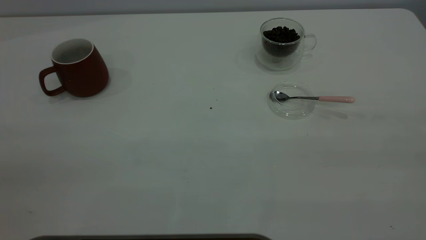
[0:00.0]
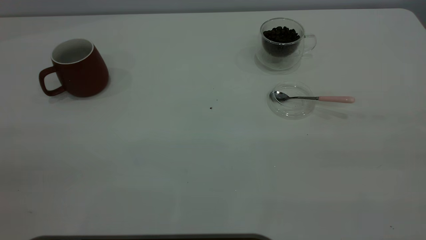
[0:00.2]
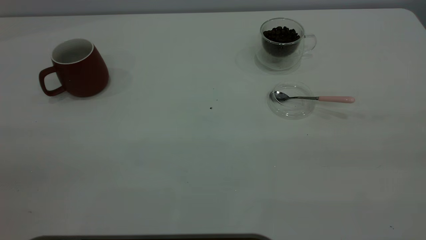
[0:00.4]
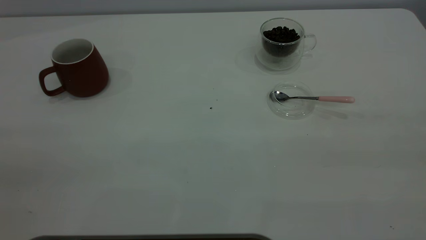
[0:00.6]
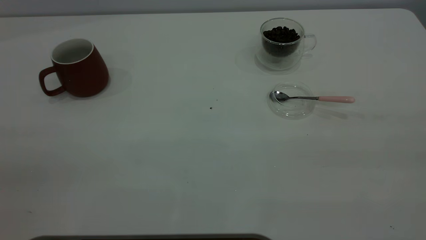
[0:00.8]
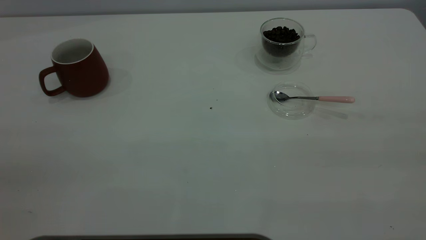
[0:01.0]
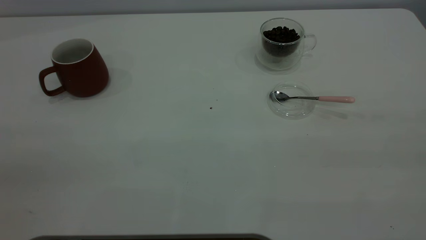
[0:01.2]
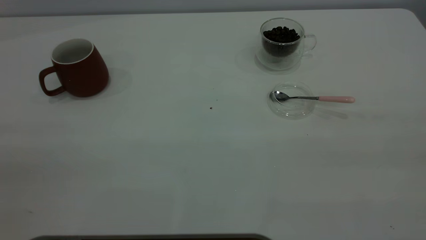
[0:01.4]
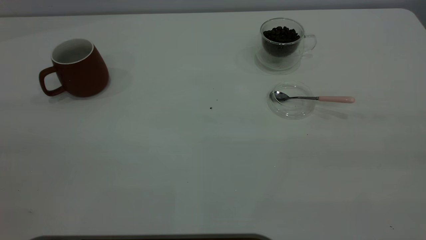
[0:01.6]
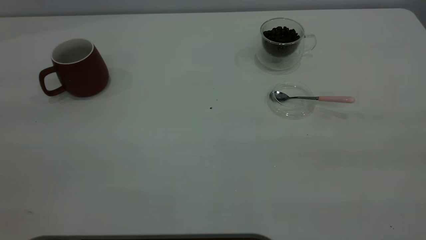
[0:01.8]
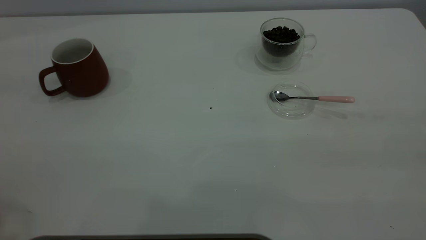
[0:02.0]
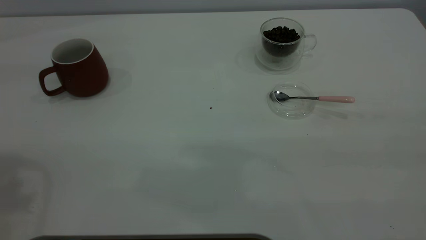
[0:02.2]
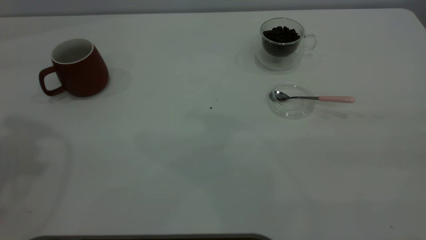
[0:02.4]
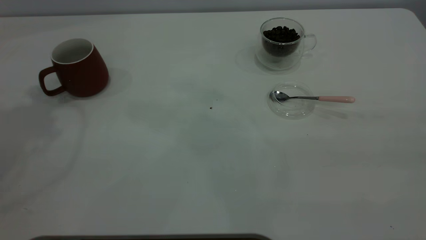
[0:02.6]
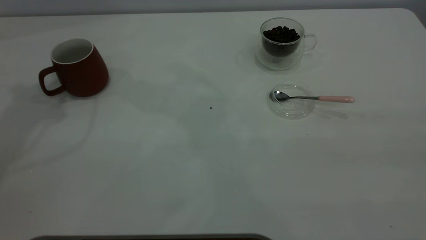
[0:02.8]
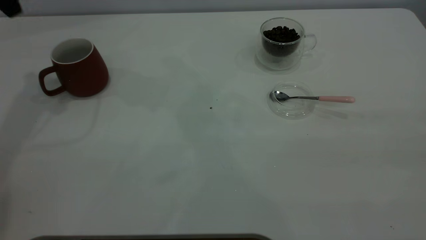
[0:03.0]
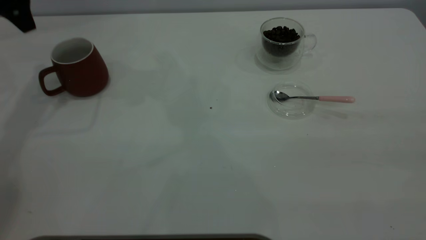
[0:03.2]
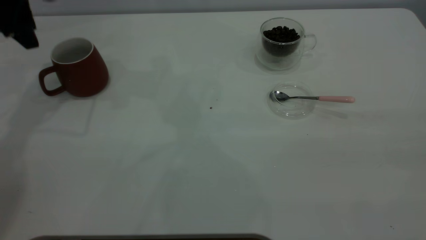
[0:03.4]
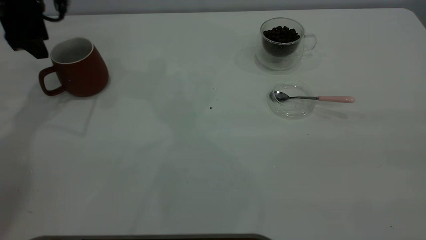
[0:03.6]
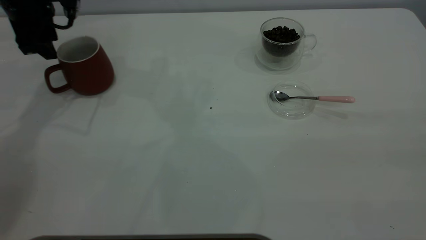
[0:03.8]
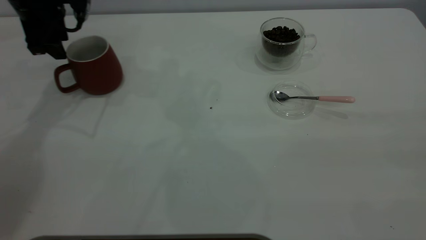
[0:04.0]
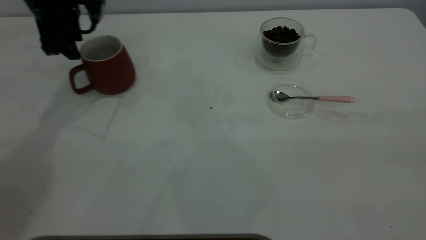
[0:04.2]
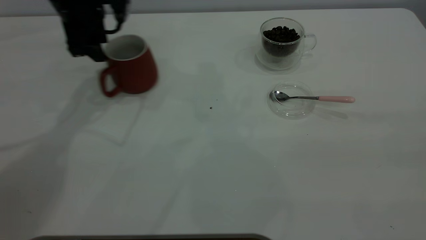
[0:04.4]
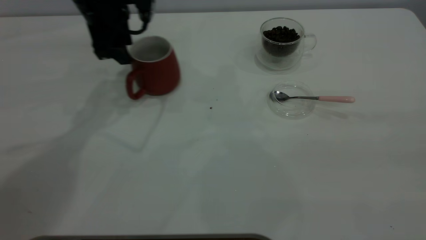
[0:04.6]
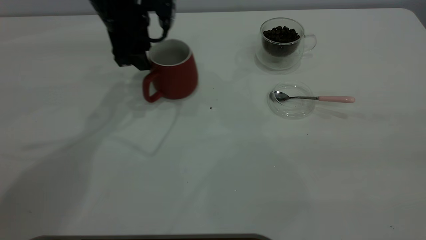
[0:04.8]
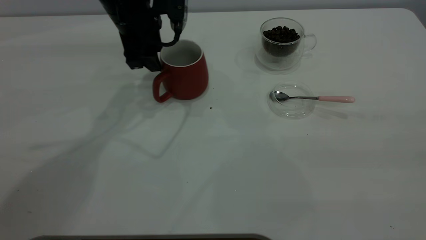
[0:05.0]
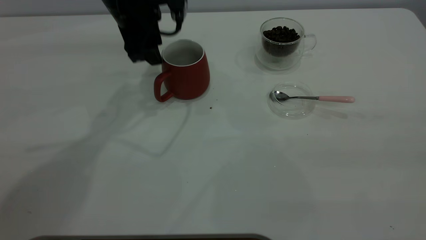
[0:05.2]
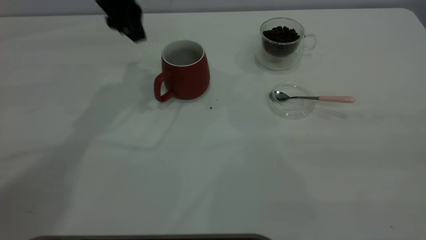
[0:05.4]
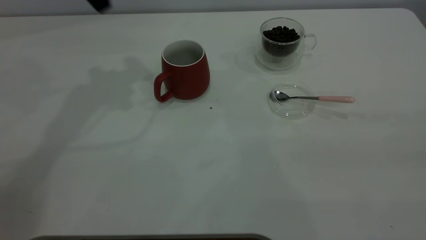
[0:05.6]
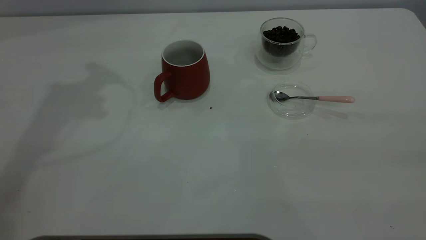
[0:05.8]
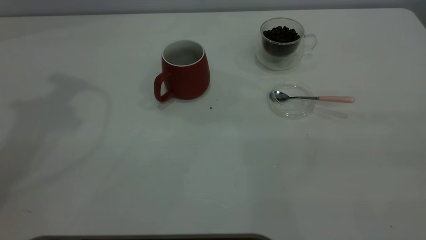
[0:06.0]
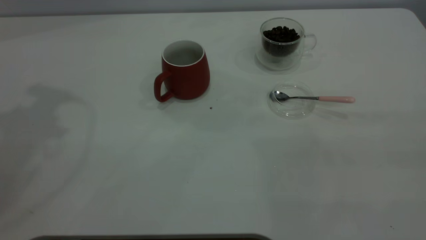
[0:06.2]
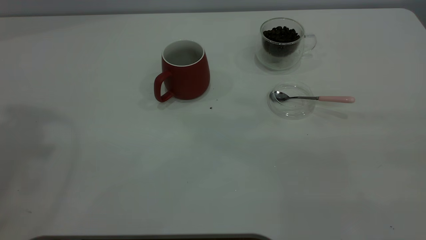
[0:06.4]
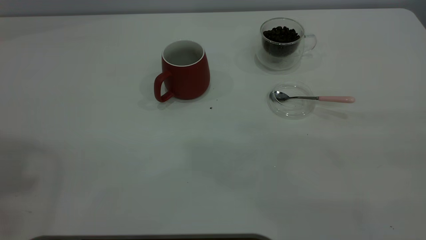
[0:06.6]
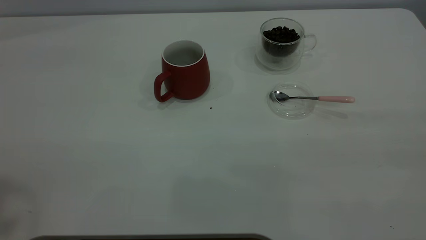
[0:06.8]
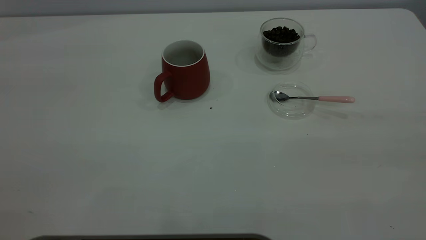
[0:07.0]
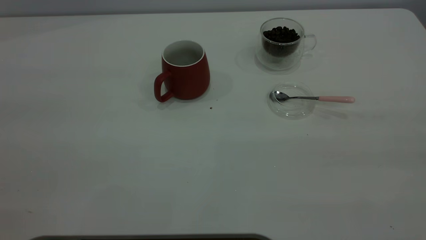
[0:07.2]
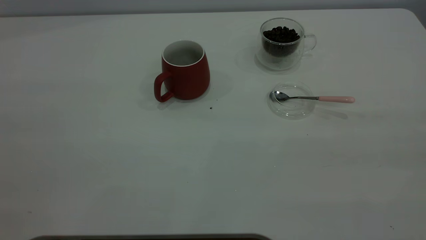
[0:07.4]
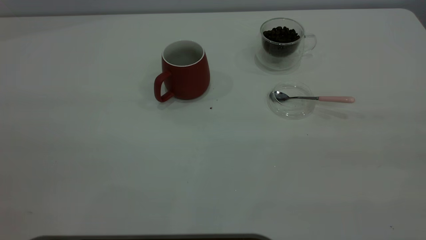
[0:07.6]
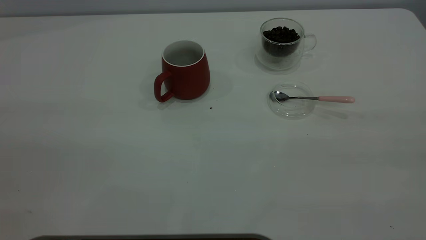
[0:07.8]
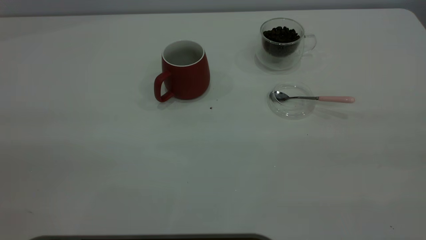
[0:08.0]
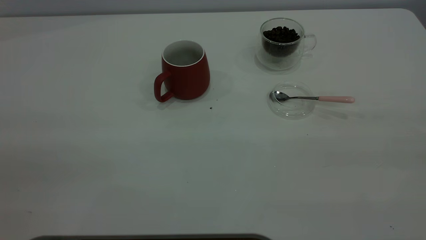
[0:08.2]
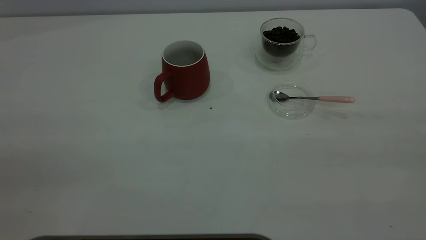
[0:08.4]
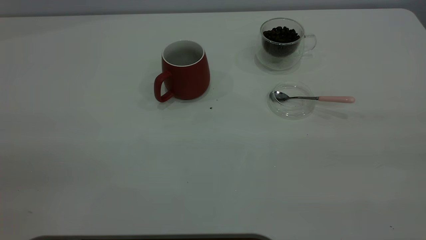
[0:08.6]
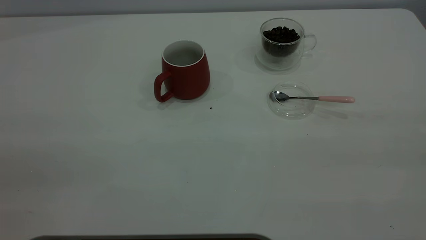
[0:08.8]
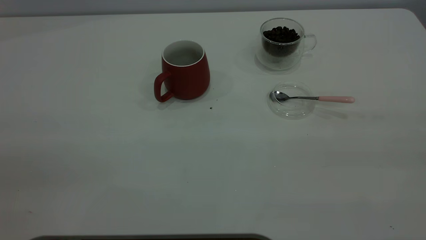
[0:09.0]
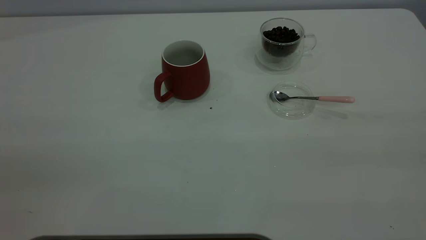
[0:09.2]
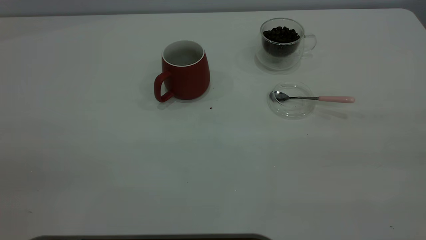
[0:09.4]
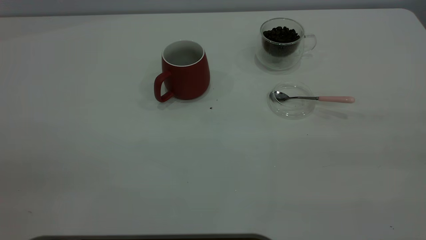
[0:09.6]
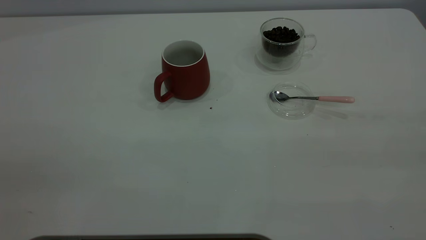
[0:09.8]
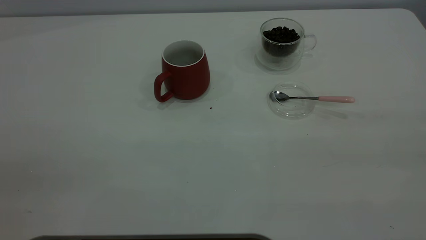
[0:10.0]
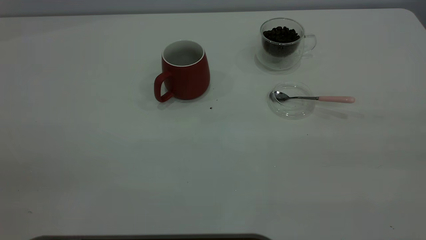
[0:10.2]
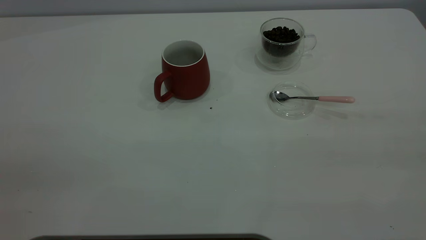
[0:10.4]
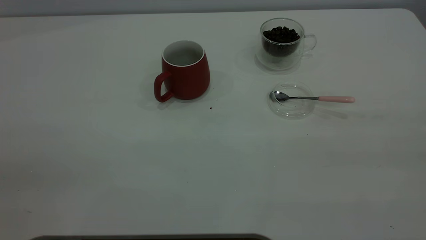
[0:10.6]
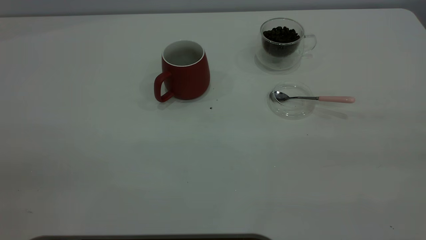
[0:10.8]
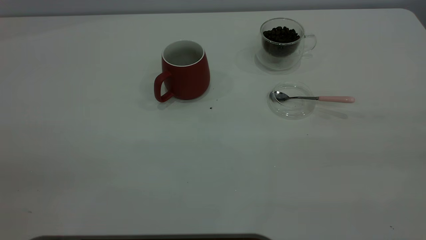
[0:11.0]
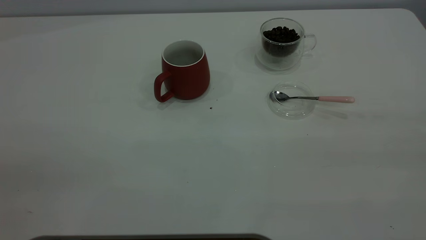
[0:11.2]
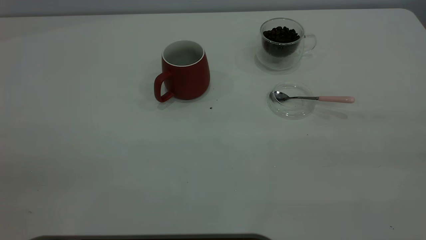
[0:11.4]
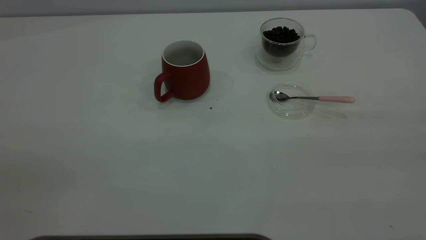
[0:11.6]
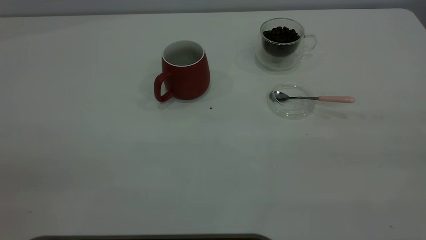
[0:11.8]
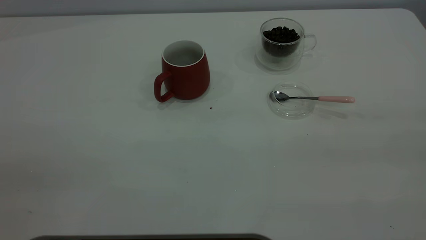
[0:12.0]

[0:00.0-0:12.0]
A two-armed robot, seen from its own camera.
Task of the whole recording: the left gripper place the red cup in the center of the table, the right gripper take the pink spoon from the cup lid and scoop out the coffee beans from the coffee cup and put them into the red cup, the right gripper put the spoon back into the cup lid.
Step, 0:00.0 to 0:05.2: Move the cup to the center of view.
0:03.0 to 0:04.4: The left gripper is displaced to the right and downward by roughly 15 cm.
0:04.4 to 0:06.0: The left gripper is displaced upward and backward by some 25 cm.
0:10.4 to 0:12.0: The two grippers keep their place.

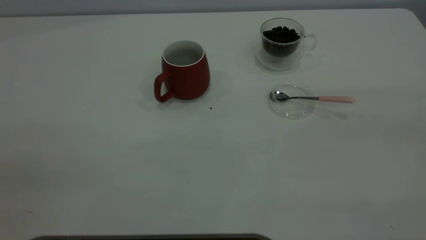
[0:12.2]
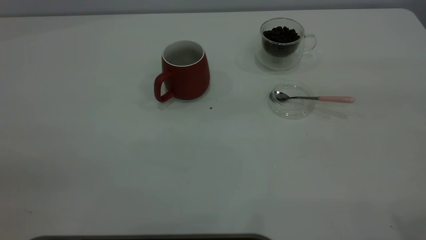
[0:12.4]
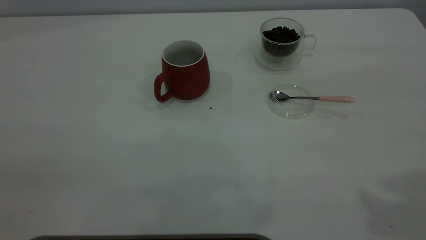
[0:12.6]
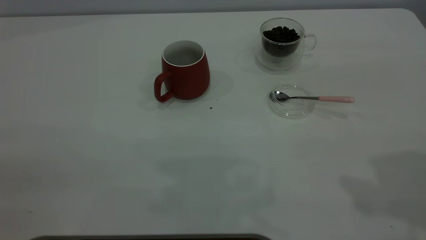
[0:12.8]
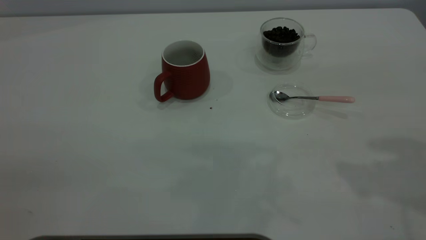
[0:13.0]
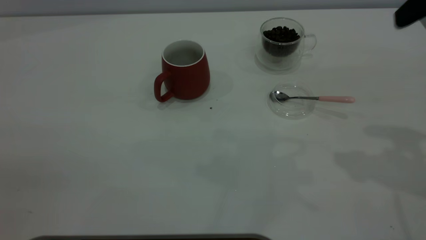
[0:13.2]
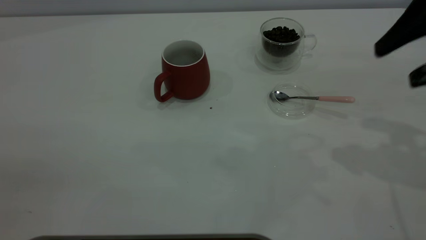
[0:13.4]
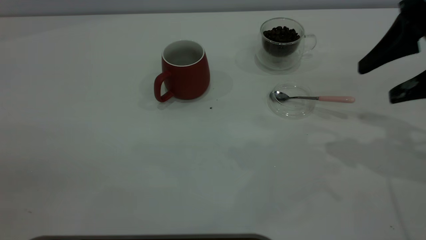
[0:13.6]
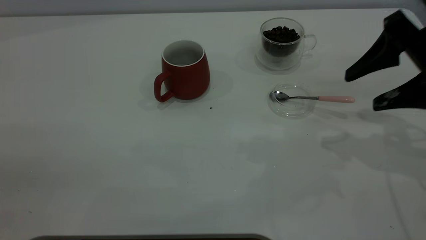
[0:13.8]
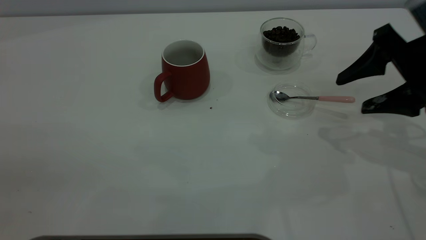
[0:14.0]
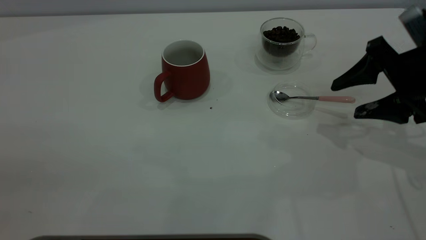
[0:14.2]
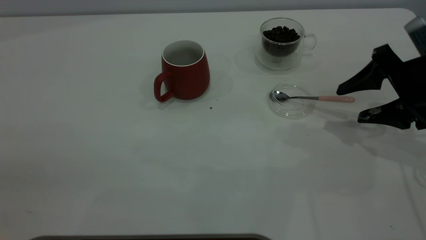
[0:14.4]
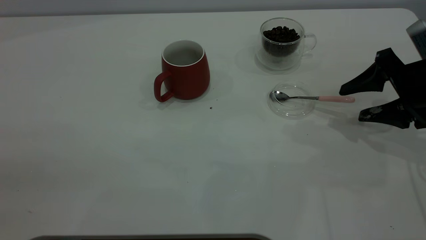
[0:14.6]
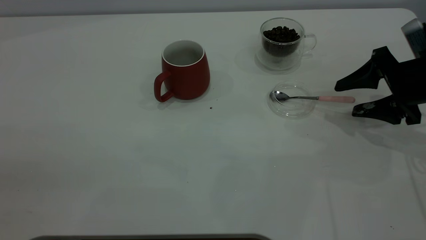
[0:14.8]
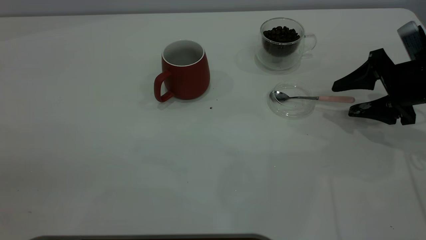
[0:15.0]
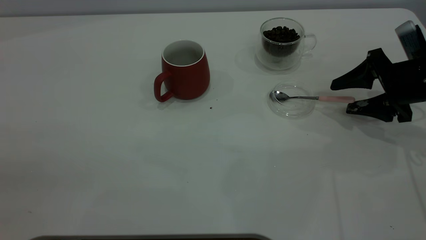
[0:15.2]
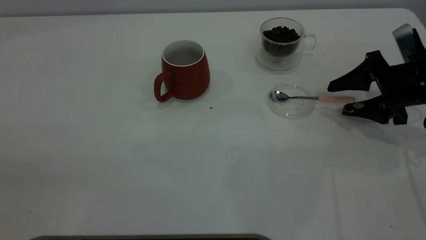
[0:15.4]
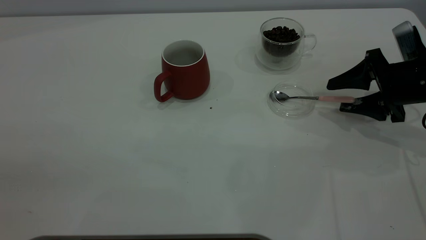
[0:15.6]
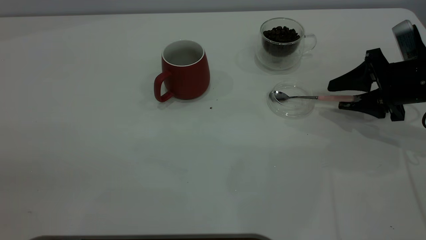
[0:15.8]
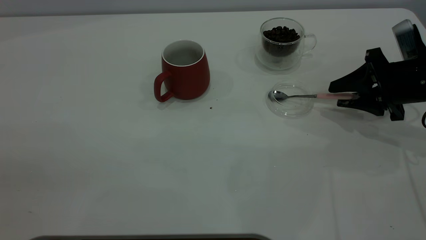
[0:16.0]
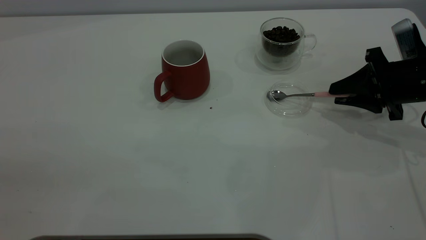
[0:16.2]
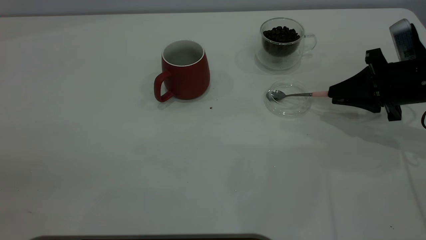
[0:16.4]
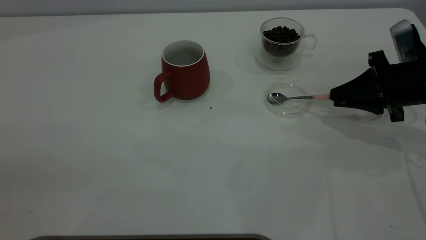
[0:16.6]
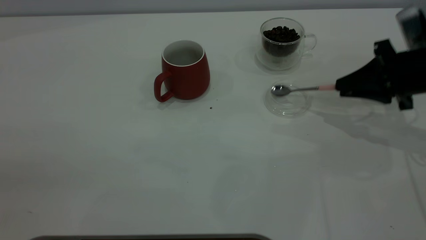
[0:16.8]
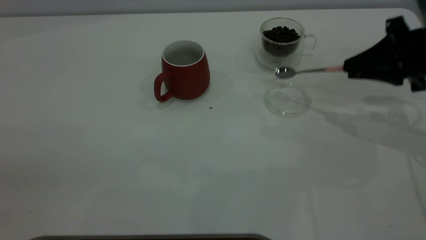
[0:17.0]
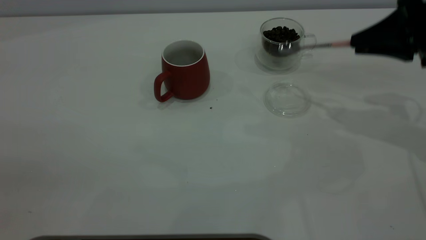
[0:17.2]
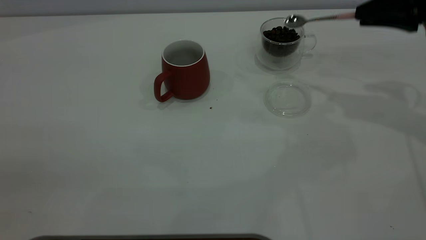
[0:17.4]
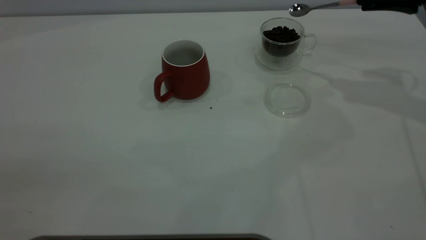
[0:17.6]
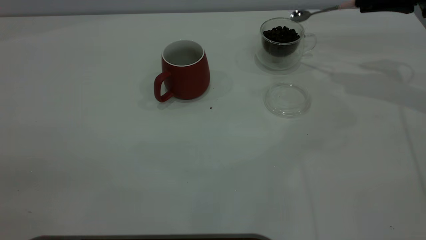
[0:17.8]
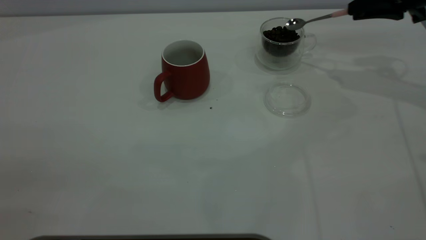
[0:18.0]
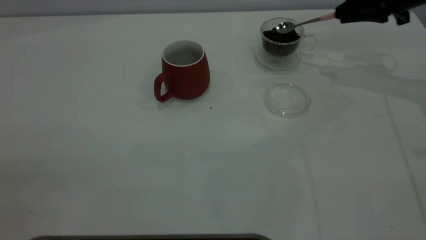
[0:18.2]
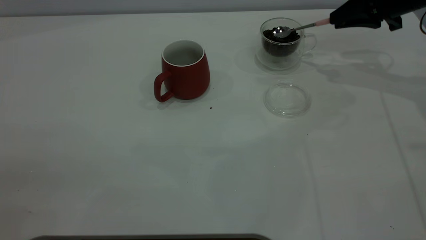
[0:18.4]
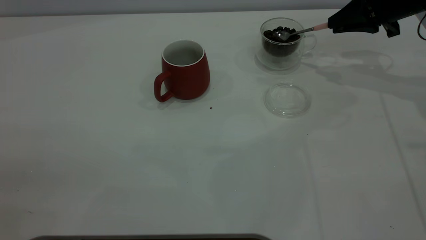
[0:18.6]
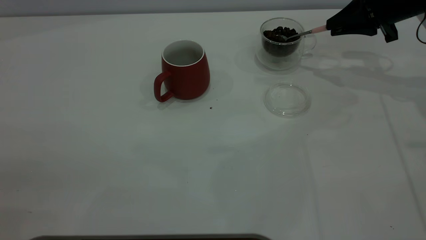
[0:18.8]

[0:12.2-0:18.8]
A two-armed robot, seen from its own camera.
Task of the whole recording: the left gripper place the red cup in the center of the table, the right gripper take the pink spoon from the cup lid and scoop out the coffee beans from the coffee cup and put them into the red cup, the right gripper put the spoon back into the cup lid.
Step, 0:12.2 to 0:16.8: Pick up the spoon.
0:12.2 to 0:13.8: The right gripper shifts about 35 cm forward and downward.
0:13.8 to 0:15.4: The right gripper heads downward and forward, covering some 10 cm.
0:15.4 to 0:17.2: The right gripper goes roughly 10 cm upward, and closes its fingers.
0:17.2 to 0:18.8: The right gripper heads forward, covering about 10 cm.
